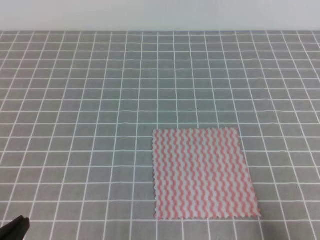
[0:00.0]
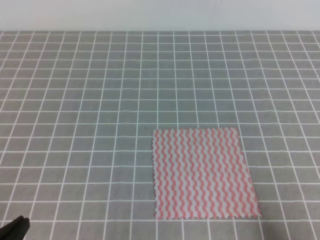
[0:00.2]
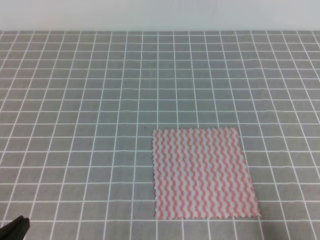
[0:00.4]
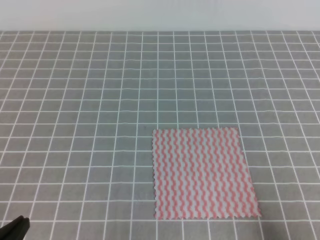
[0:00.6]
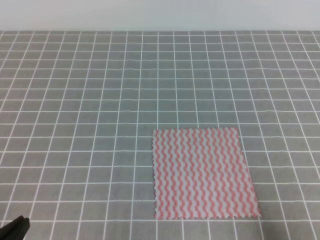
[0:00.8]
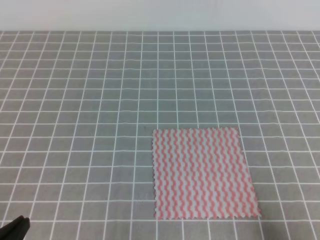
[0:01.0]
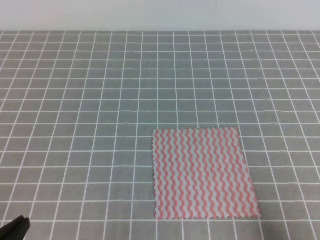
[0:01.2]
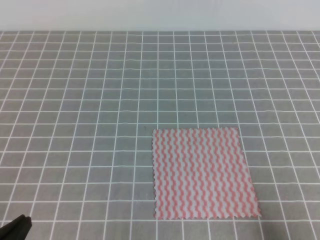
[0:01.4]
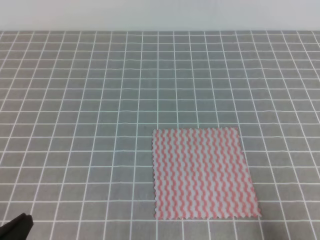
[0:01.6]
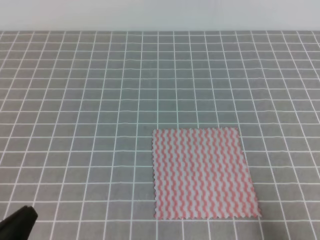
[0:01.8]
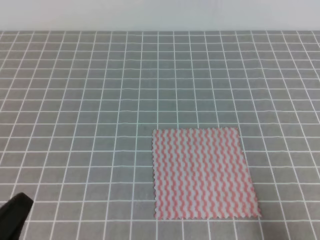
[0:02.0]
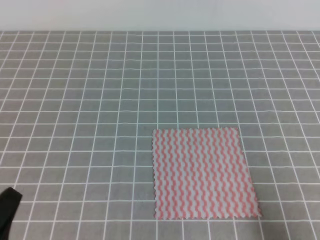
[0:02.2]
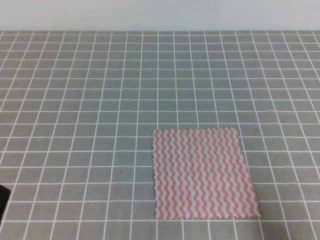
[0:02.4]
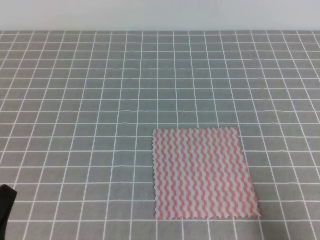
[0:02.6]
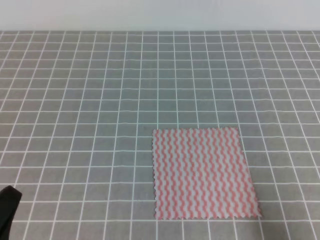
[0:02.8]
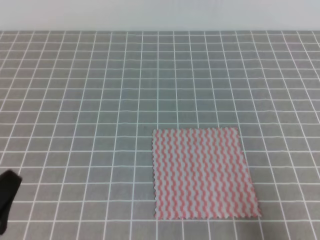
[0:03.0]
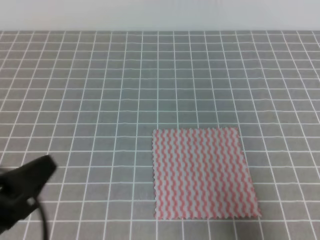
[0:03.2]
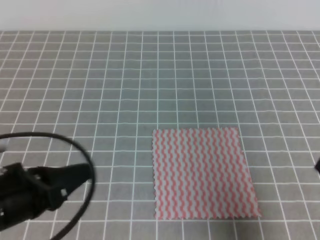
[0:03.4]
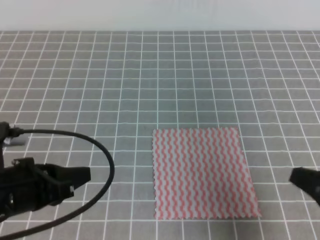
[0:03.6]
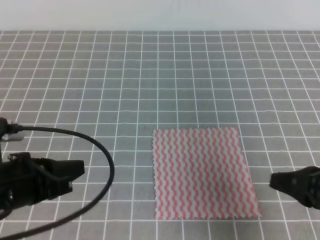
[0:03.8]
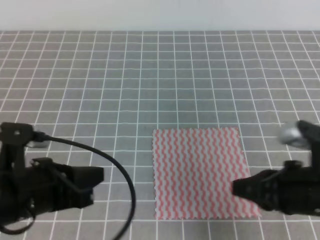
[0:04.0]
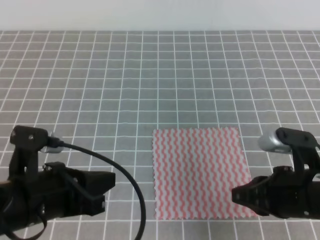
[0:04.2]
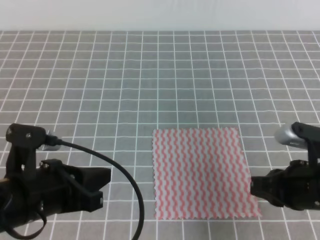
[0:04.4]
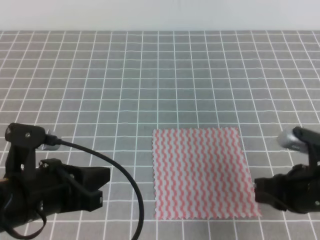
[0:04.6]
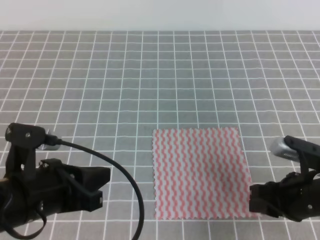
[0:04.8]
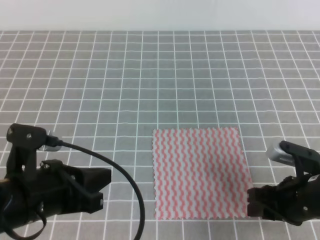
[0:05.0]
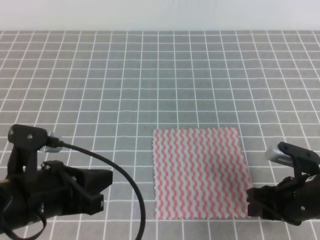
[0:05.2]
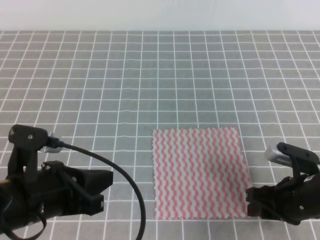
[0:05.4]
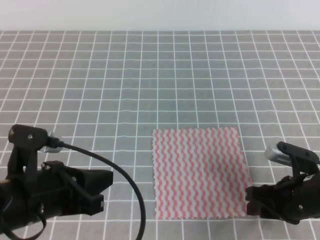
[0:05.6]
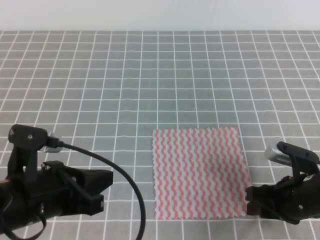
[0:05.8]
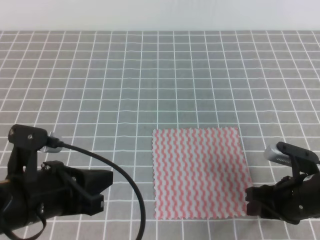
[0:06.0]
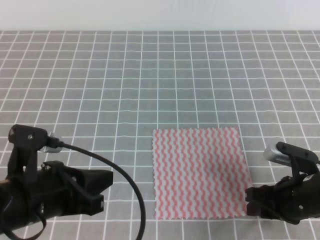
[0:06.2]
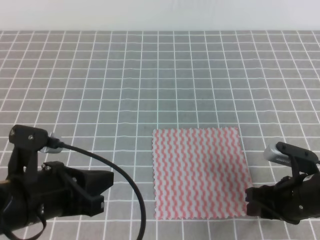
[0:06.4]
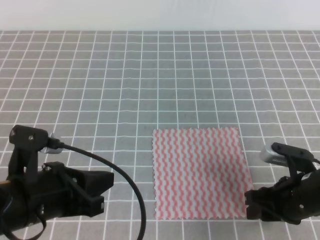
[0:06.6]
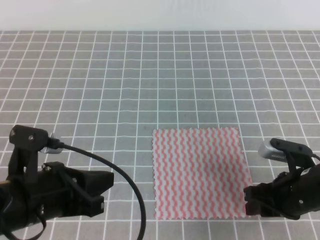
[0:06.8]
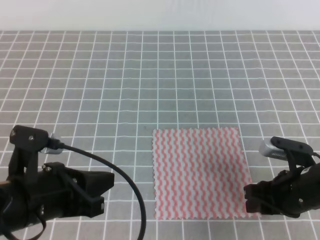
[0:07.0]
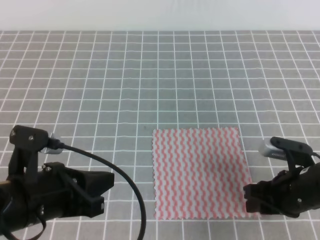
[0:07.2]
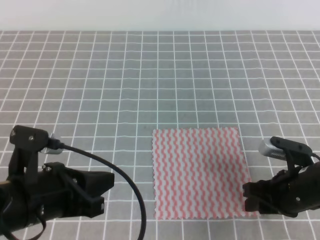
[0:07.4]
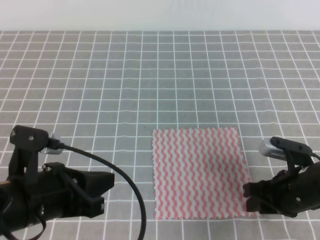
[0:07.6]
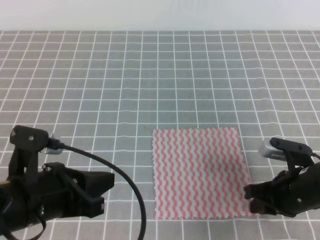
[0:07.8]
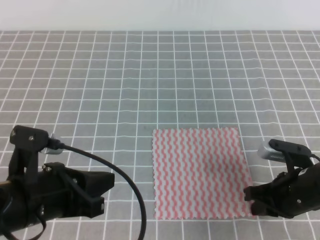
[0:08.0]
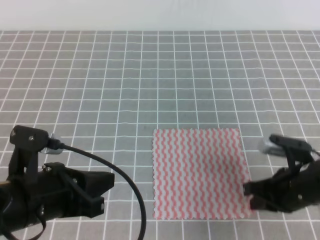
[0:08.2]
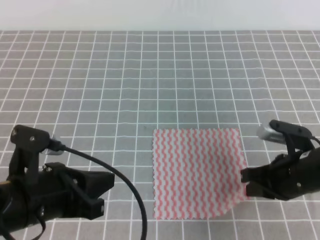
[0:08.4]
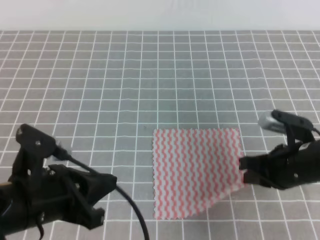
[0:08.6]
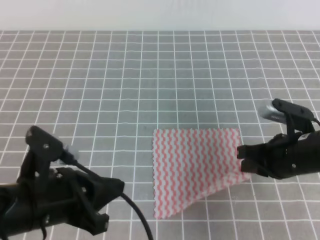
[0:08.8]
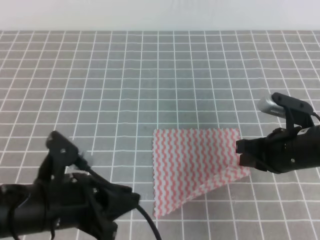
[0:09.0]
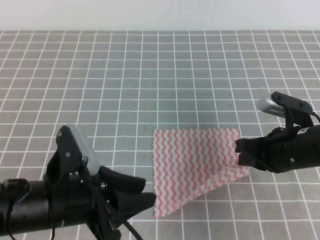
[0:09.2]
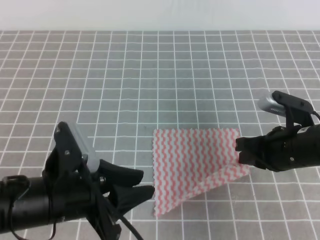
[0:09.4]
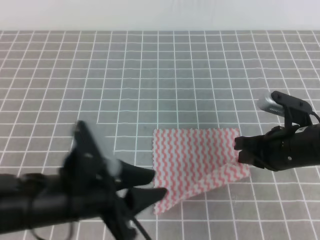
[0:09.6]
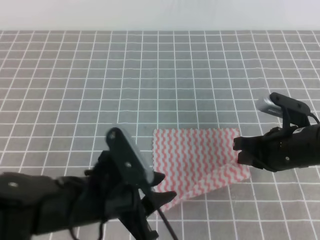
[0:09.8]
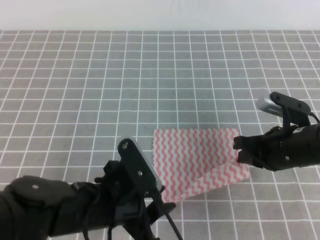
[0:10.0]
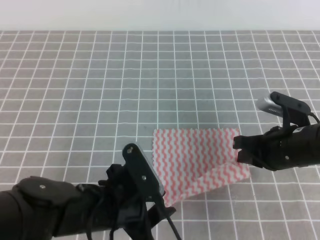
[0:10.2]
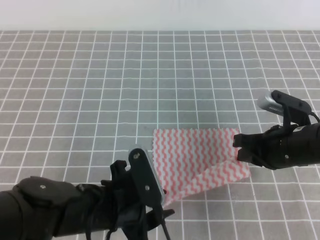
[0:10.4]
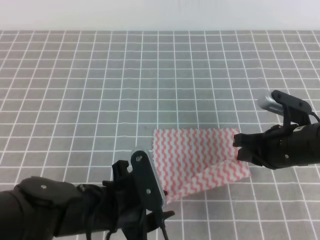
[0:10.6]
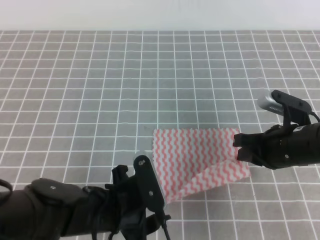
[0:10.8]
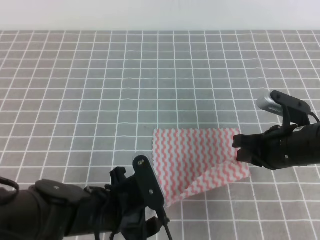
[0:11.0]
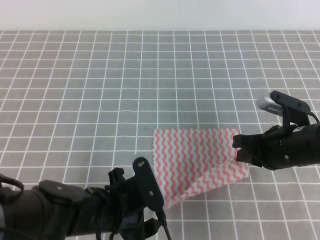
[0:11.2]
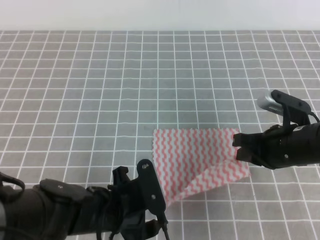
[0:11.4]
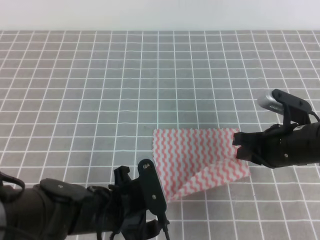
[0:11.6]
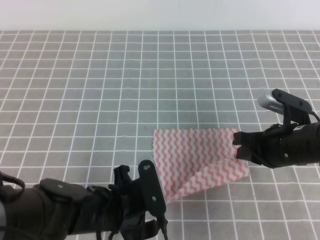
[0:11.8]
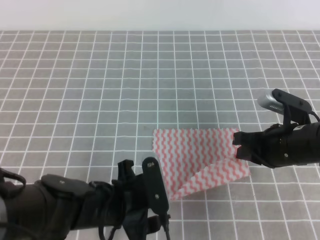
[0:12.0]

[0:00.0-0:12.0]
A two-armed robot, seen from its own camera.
0:01.6 to 0:03.0: The left gripper goes some 5 cm upward.
0:03.0 to 0:04.4: The right gripper is displaced forward and to the left by roughly 15 cm. The left gripper goes about 10 cm forward and to the right.
0:04.4 to 0:06.0: The right gripper moves downward, approximately 5 cm, and opens.
0:06.0 to 0:07.6: The grippers stay close to where they were, moving slightly.
0:07.6 to 0:09.0: The right gripper moves upward, approximately 5 cm, and closes, while the left gripper opens up.
0:09.0 to 0:10.4: The left gripper travels to the right by roughly 5 cm.
0:10.4 to 0:12.0: The grippers make only small movements.

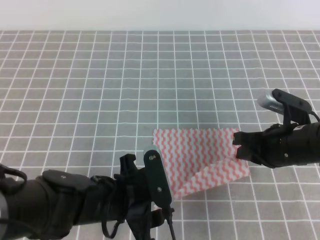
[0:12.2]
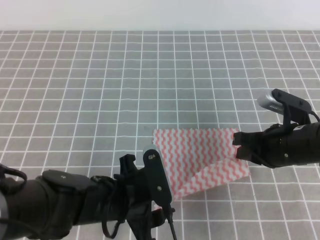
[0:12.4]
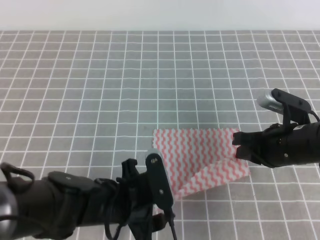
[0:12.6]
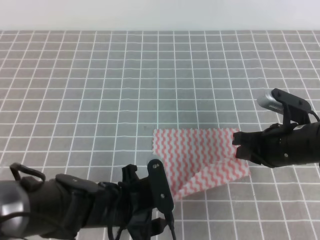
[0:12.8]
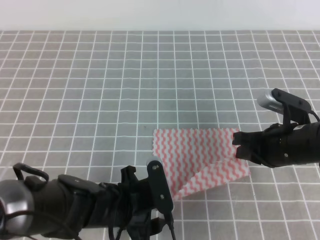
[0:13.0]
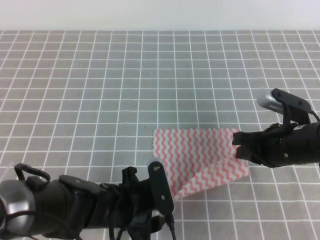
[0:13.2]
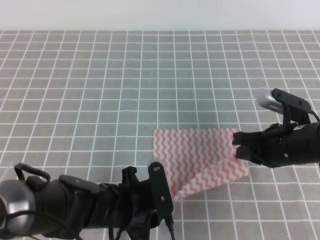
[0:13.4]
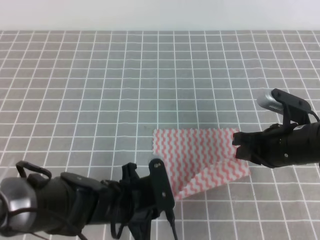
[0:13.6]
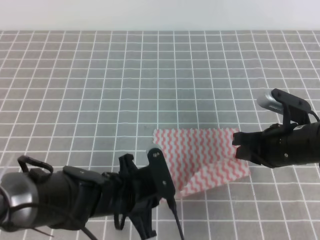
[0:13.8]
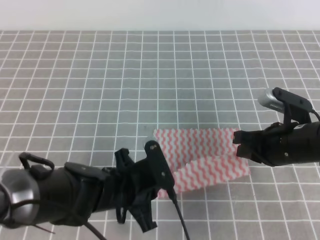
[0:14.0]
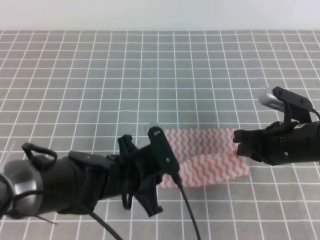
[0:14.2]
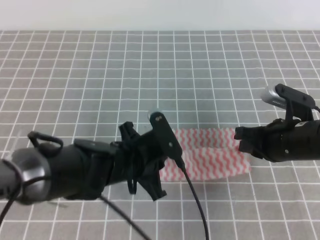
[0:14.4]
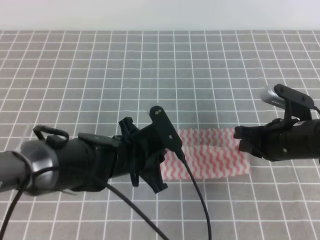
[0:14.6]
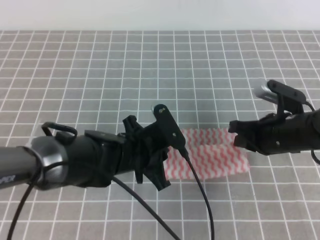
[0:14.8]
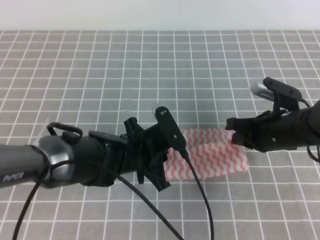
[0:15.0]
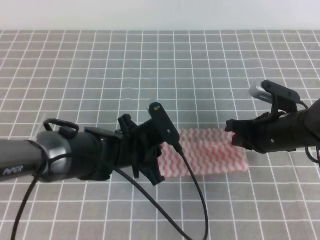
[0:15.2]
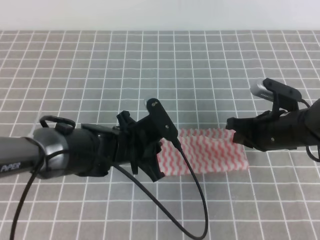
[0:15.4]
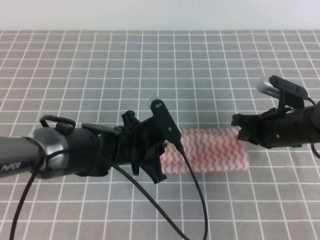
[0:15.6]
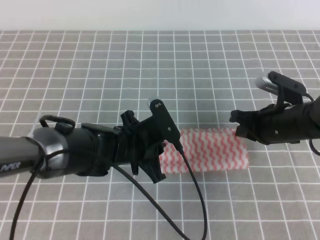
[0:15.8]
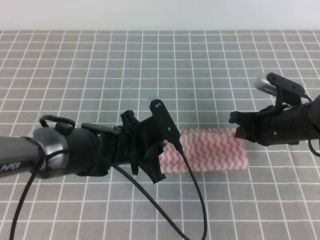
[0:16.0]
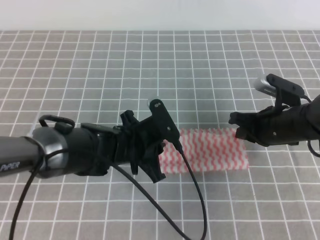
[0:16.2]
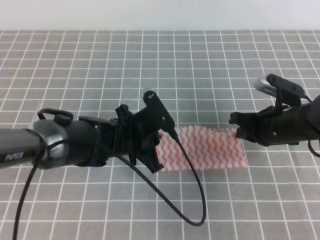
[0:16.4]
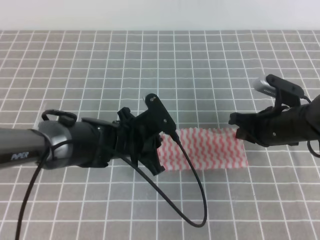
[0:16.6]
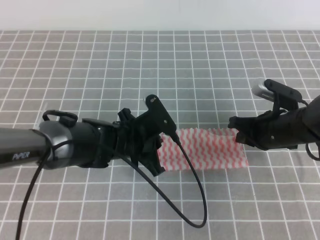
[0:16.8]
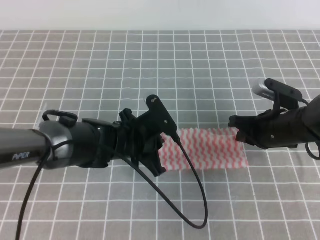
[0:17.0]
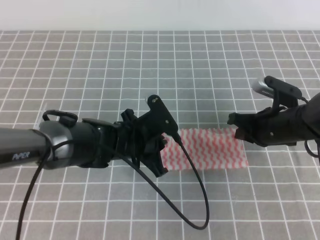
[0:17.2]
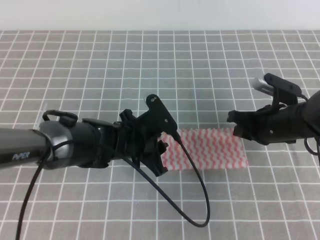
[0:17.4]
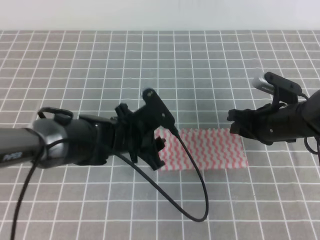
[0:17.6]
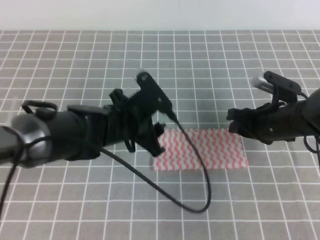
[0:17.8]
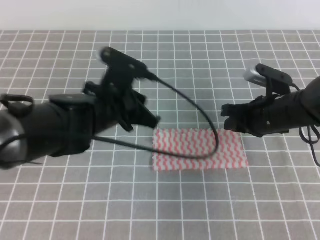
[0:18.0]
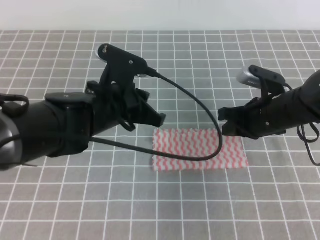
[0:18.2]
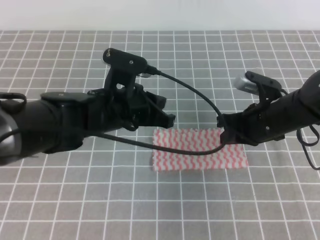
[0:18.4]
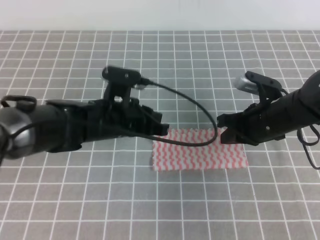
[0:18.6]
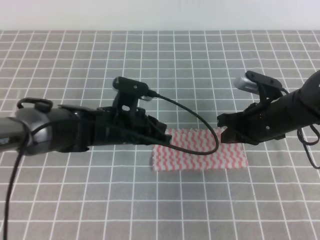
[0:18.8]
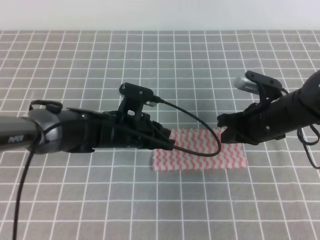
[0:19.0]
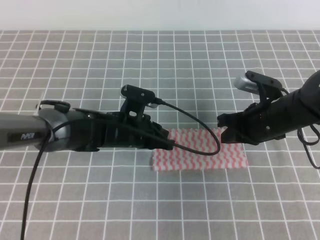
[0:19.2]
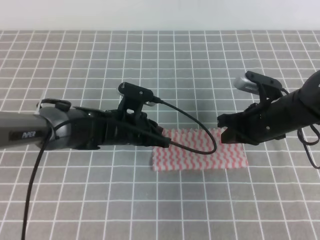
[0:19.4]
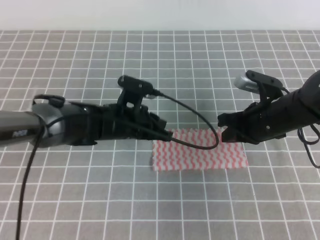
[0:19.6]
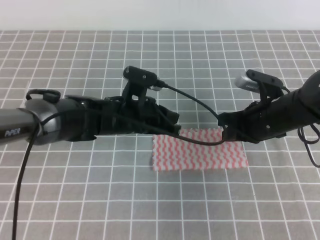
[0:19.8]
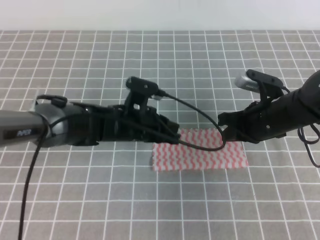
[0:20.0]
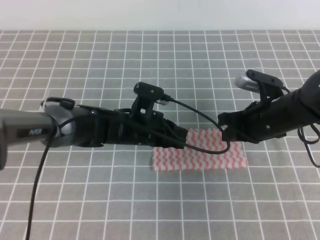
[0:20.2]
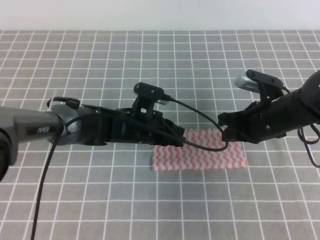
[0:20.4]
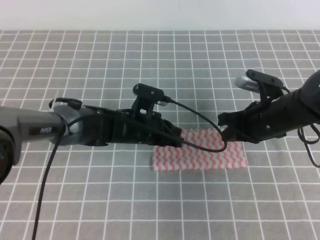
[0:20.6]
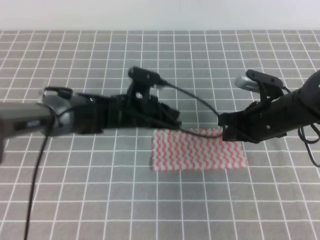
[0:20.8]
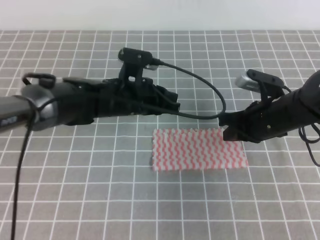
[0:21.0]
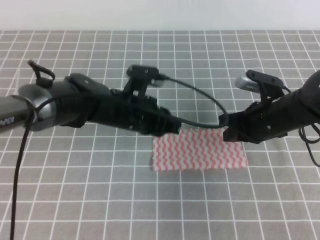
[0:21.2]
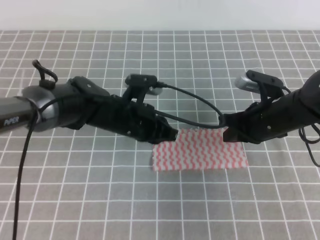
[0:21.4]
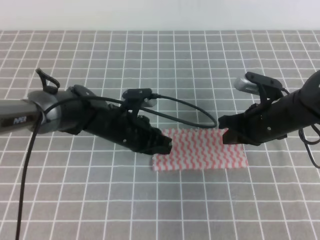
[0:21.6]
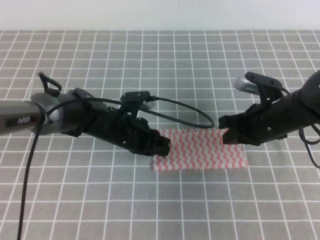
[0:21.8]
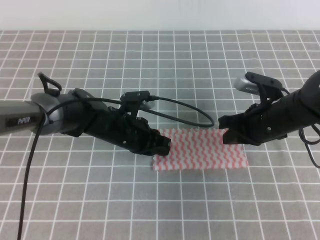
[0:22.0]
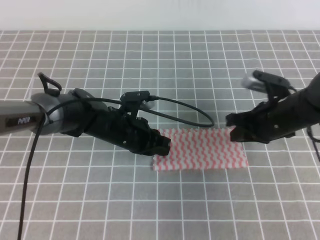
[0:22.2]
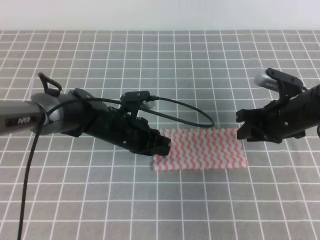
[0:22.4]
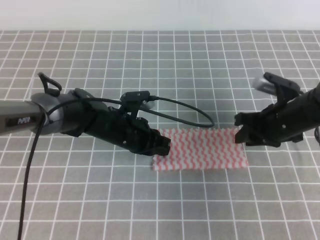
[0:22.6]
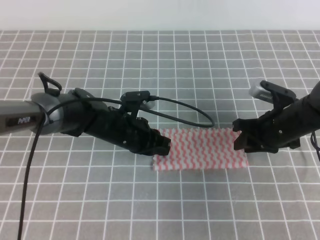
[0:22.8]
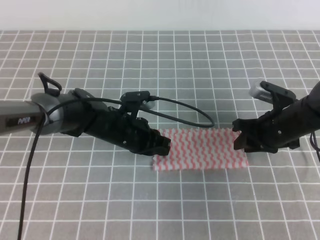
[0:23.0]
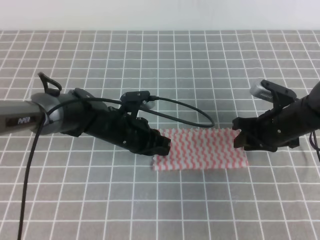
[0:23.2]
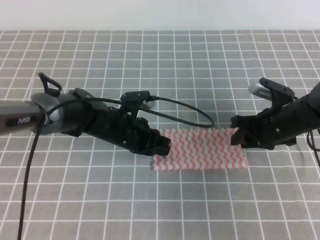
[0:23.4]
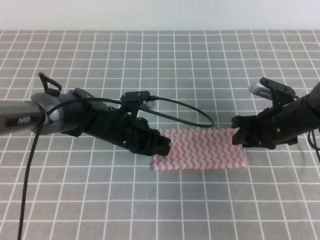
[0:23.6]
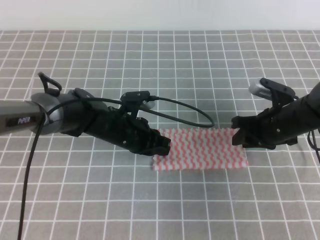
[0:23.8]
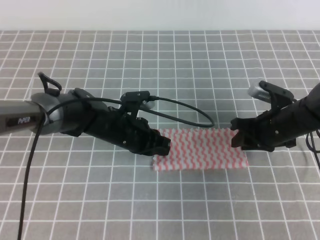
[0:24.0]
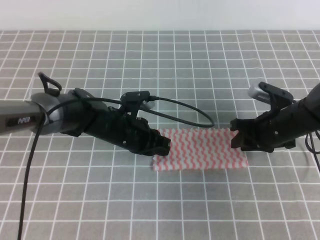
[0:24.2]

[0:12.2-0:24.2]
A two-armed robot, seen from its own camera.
0:12.2 to 0:13.8: The left gripper closes up.
0:13.8 to 0:15.2: The left gripper shifts roughly 10 cm forward.
0:15.2 to 0:16.6: The grippers move only a little.
0:16.6 to 0:18.2: The left gripper heads upward, covering some 10 cm, and opens, then closes once more. Meanwhile the right gripper opens, then closes again.
0:18.2 to 0:19.8: The left gripper goes about 5 cm downward.
0:19.8 to 0:21.2: The grippers stay close to where they were, moving slightly.
0:21.2 to 0:22.6: The left gripper moves downward, some 5 cm. Meanwhile the right gripper opens up.
0:22.6 to 0:24.2: The grippers make only small movements.
